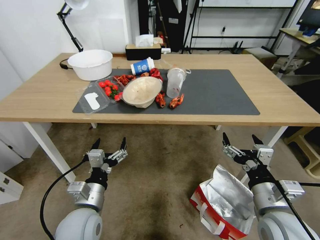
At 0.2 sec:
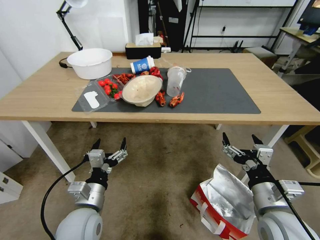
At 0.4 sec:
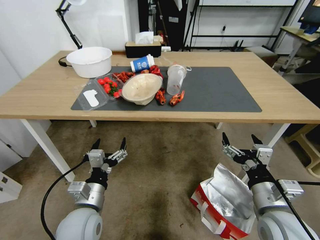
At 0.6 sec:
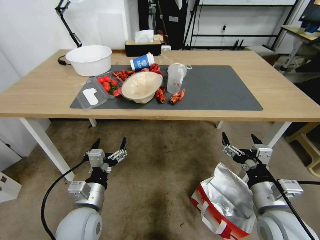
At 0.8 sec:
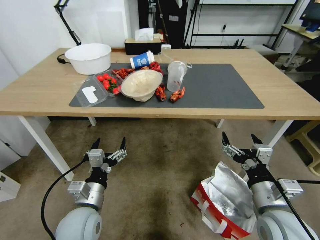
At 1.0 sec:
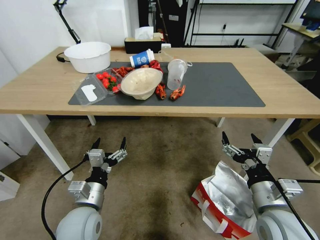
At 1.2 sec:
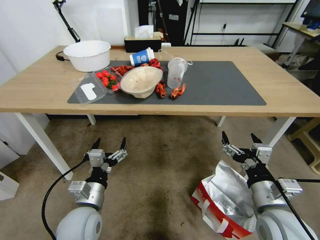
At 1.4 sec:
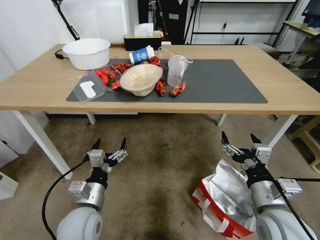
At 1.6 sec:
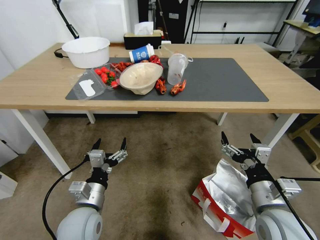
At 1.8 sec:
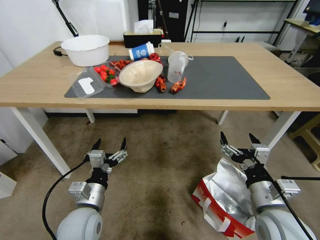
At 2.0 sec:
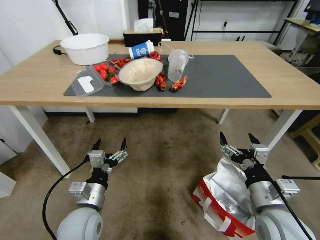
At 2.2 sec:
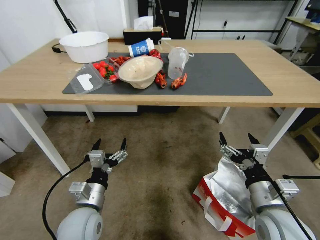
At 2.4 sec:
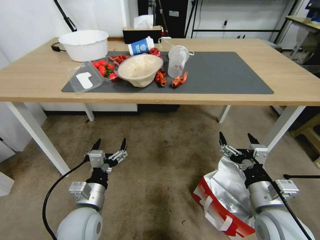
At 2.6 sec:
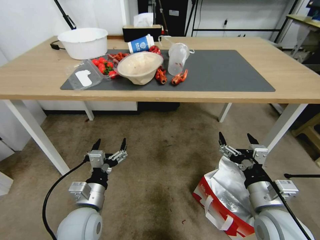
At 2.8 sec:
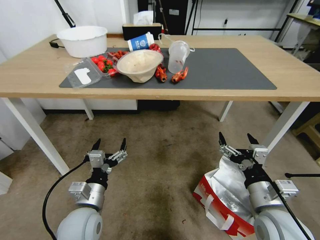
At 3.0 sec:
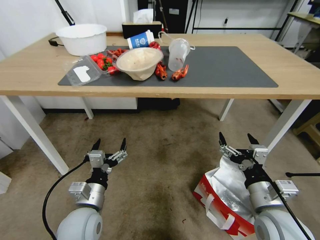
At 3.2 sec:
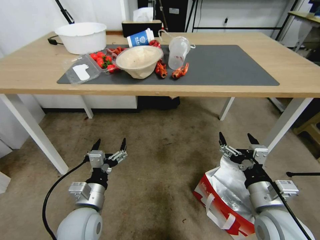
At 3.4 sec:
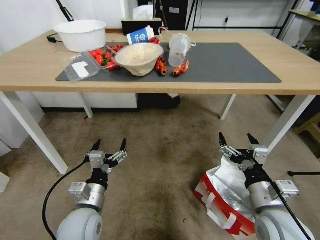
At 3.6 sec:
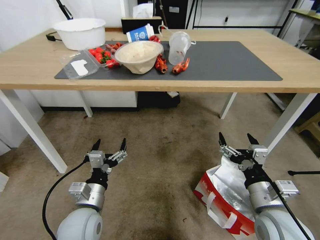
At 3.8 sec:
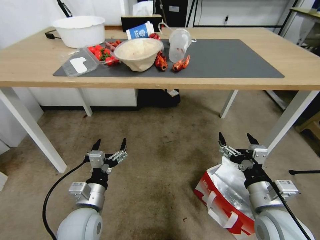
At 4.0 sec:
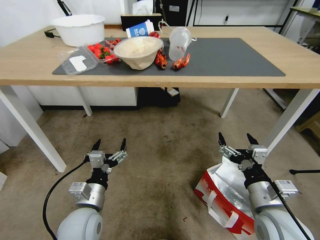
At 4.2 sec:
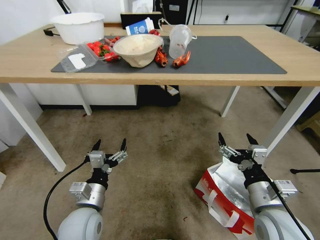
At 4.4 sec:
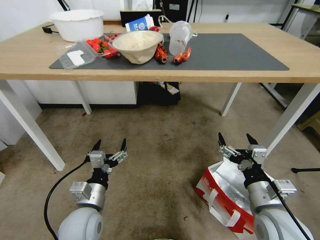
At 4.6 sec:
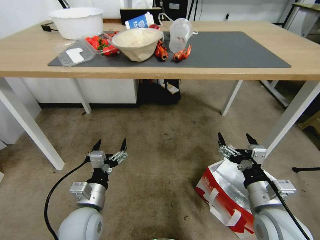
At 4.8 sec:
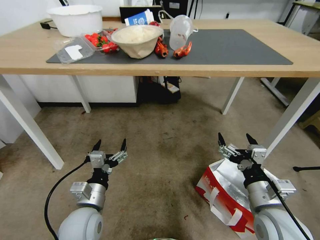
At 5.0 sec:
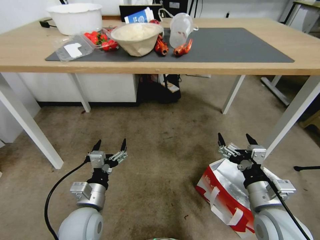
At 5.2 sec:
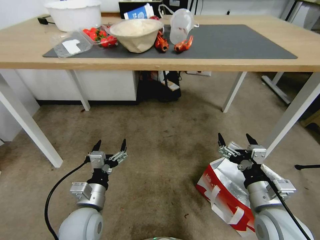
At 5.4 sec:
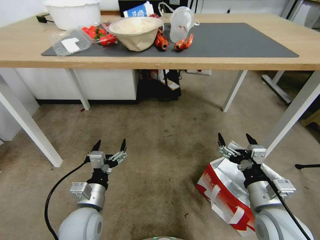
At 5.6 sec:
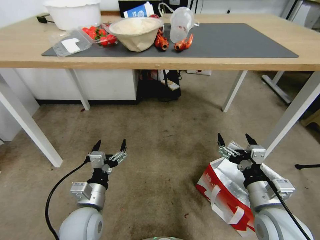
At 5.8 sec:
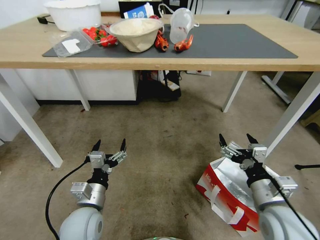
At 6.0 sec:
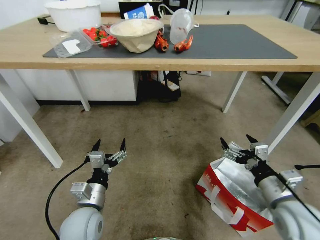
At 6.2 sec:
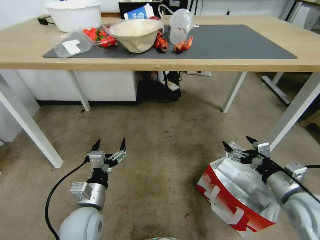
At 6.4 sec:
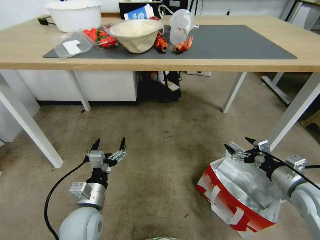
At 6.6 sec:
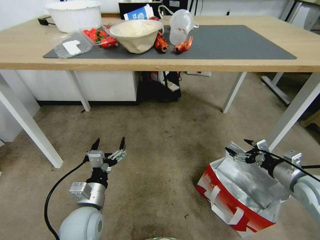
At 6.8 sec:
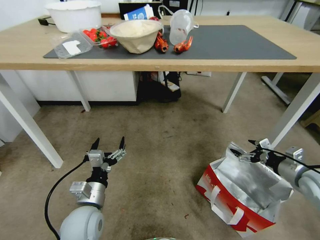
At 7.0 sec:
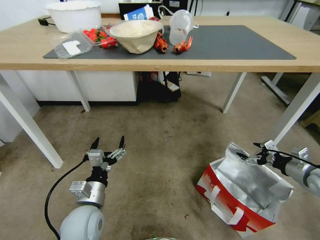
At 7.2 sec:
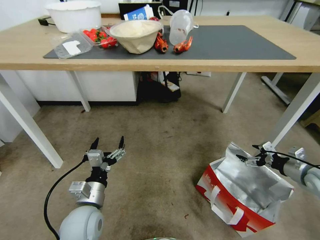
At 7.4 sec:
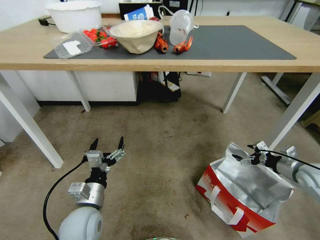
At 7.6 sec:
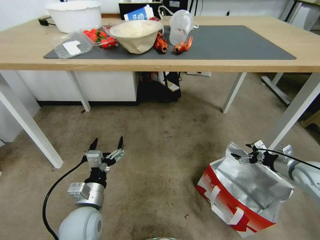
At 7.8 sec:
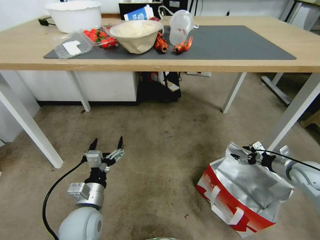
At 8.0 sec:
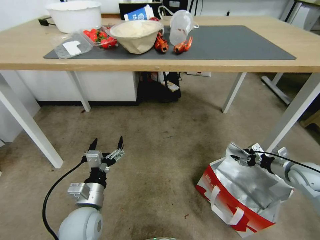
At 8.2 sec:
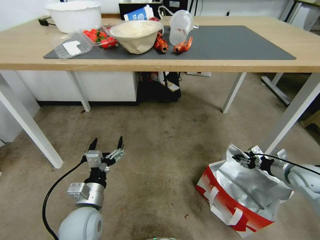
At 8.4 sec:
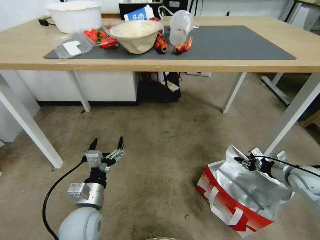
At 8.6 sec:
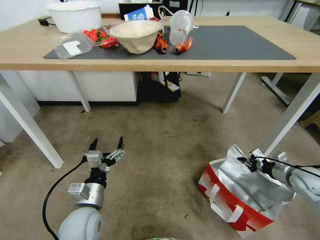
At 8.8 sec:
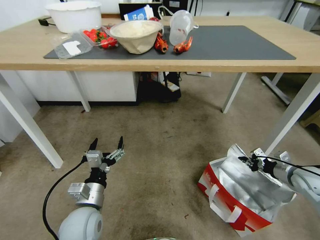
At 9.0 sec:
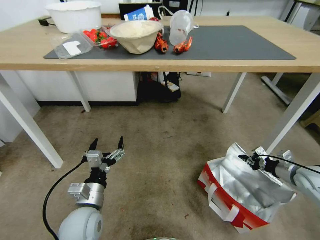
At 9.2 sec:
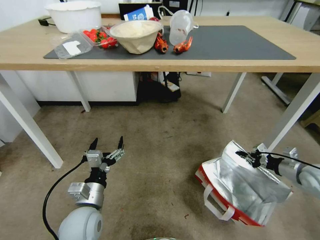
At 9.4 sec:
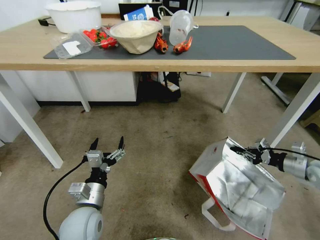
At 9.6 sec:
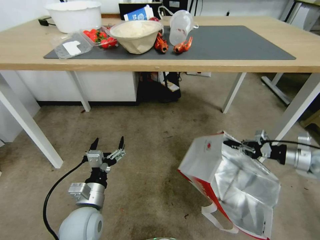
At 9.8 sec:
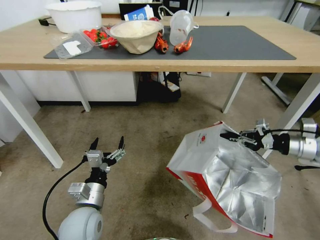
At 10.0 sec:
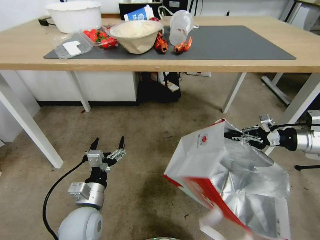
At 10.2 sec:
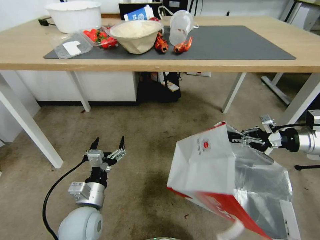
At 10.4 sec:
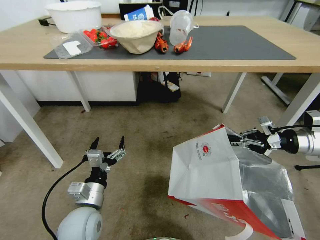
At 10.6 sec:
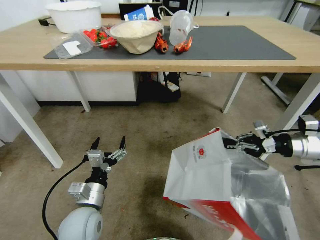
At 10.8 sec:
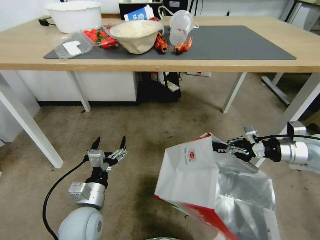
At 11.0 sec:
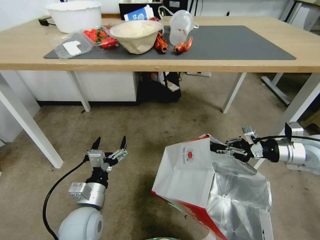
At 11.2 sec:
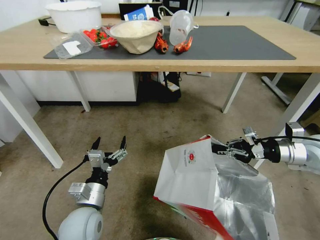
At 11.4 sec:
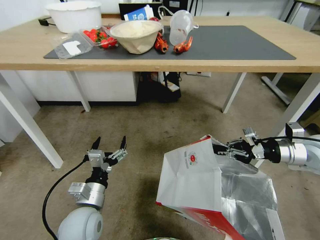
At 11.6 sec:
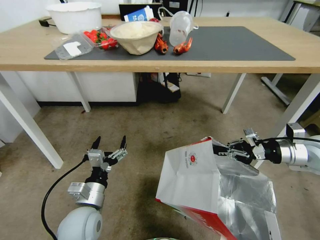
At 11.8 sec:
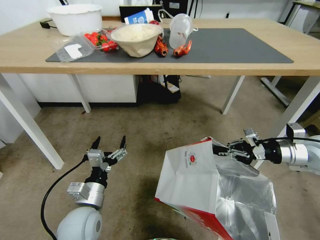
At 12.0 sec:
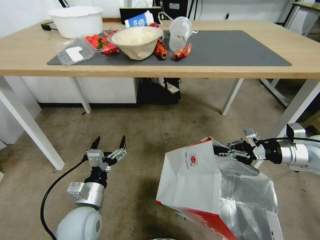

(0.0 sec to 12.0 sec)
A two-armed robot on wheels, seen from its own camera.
Task of the whole recording: Pick up the food delivery bag from the floor and place it on the table.
6.0 sec - 7.6 sec: The right gripper heads to the right and forward, covering some 25 cm.
7.6 sec - 9.0 sec: The right gripper closes its fingers.
9.0 sec - 10.4 sec: The right gripper is displaced upward by about 20 cm.

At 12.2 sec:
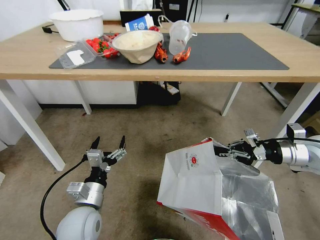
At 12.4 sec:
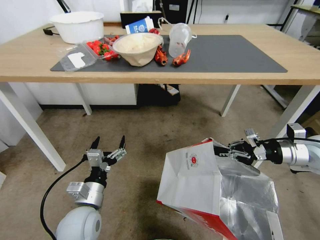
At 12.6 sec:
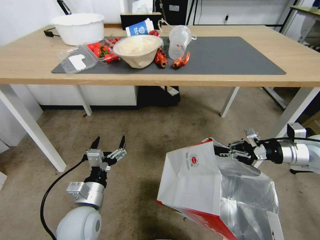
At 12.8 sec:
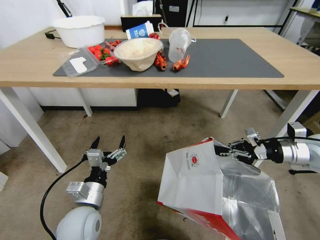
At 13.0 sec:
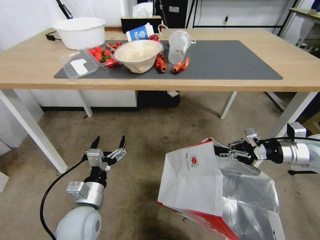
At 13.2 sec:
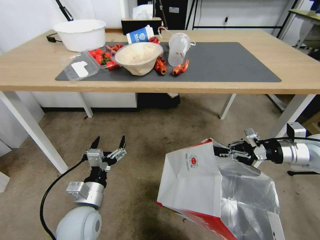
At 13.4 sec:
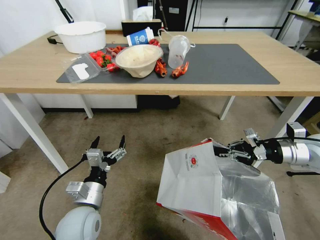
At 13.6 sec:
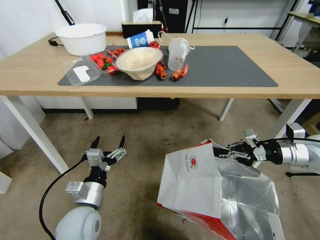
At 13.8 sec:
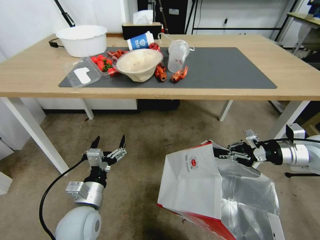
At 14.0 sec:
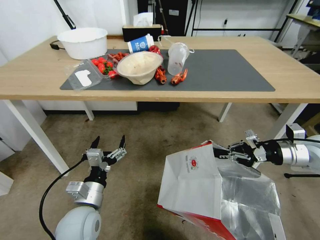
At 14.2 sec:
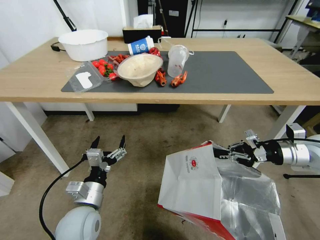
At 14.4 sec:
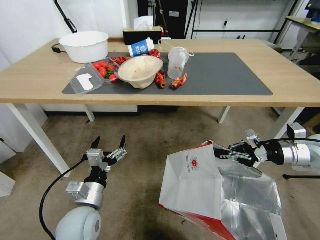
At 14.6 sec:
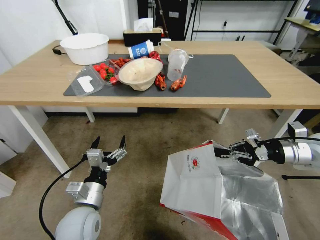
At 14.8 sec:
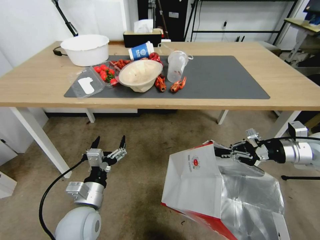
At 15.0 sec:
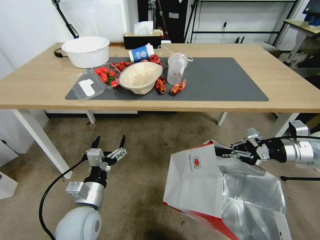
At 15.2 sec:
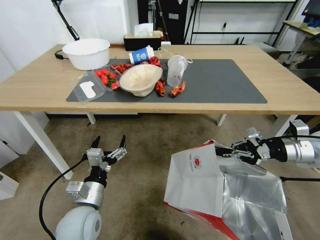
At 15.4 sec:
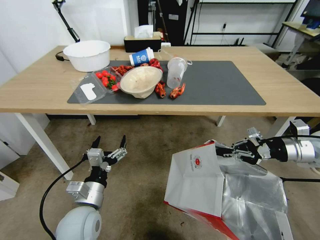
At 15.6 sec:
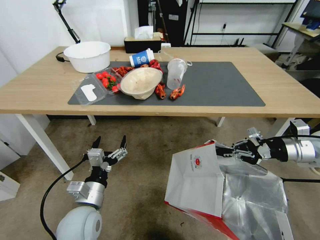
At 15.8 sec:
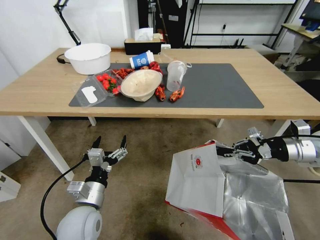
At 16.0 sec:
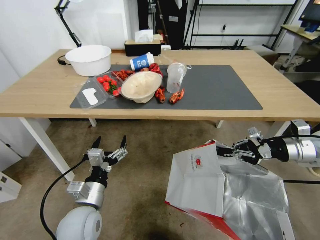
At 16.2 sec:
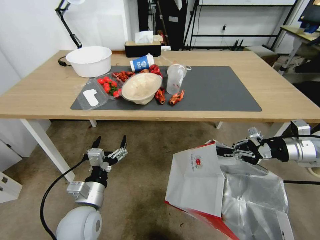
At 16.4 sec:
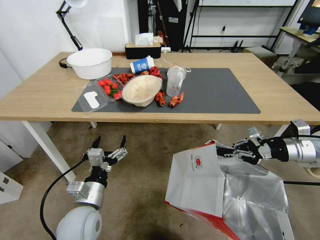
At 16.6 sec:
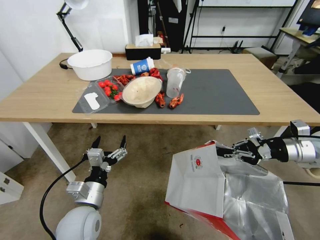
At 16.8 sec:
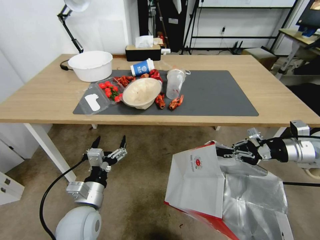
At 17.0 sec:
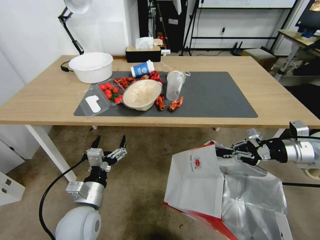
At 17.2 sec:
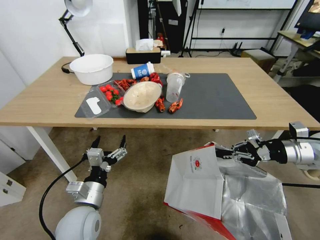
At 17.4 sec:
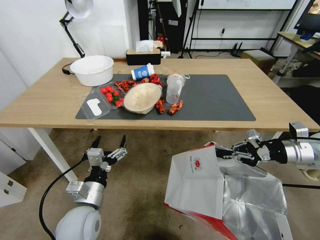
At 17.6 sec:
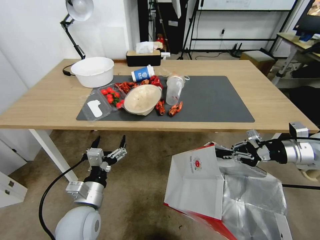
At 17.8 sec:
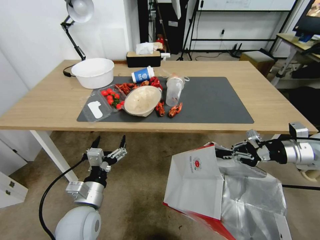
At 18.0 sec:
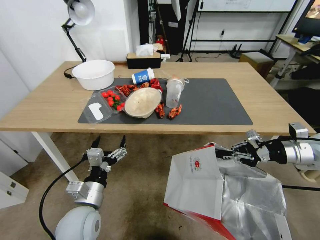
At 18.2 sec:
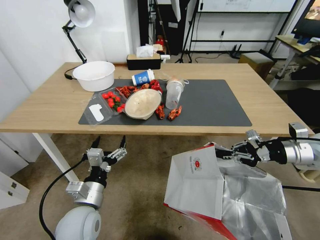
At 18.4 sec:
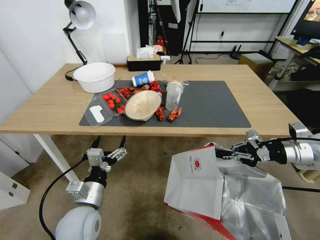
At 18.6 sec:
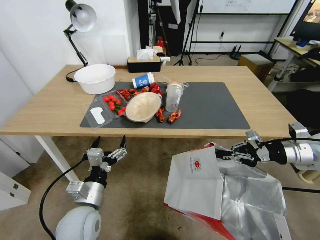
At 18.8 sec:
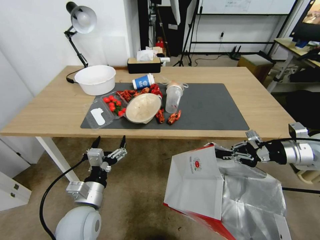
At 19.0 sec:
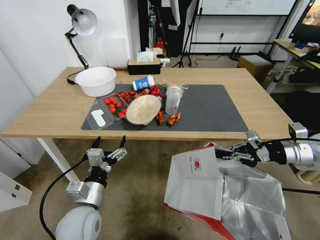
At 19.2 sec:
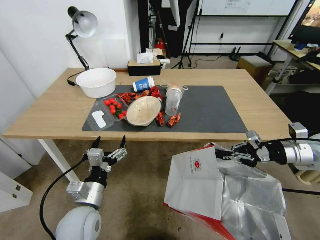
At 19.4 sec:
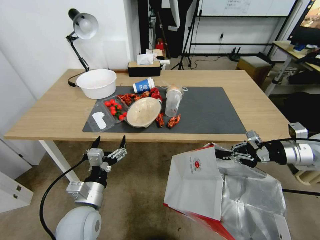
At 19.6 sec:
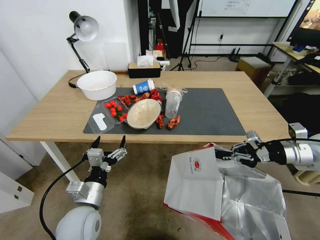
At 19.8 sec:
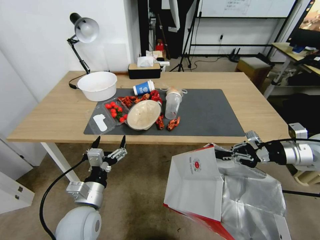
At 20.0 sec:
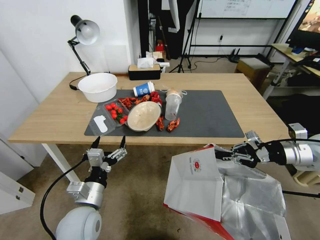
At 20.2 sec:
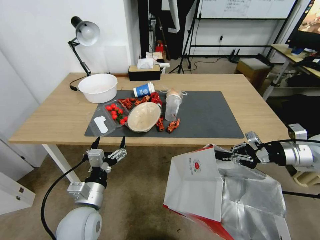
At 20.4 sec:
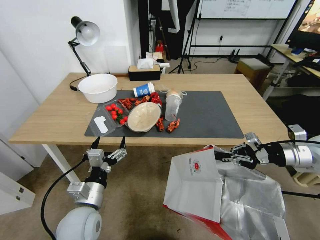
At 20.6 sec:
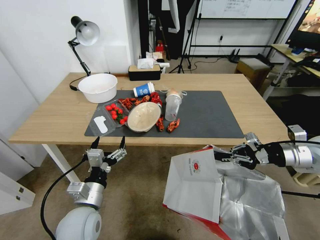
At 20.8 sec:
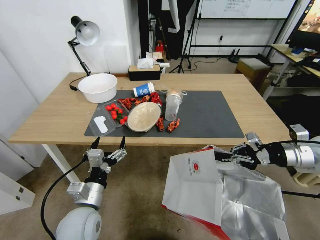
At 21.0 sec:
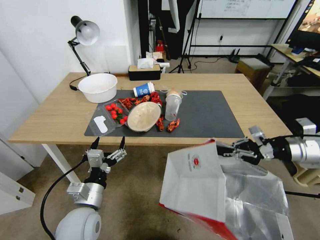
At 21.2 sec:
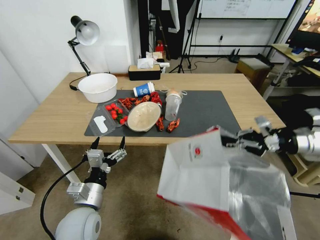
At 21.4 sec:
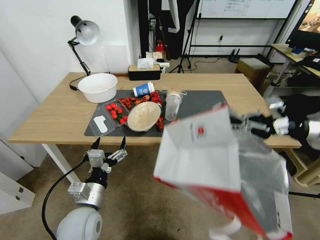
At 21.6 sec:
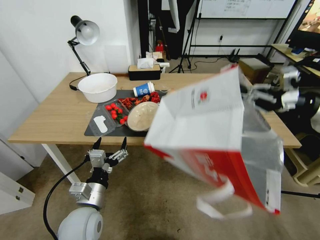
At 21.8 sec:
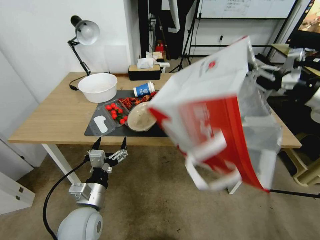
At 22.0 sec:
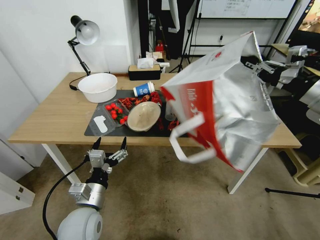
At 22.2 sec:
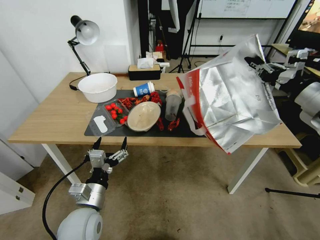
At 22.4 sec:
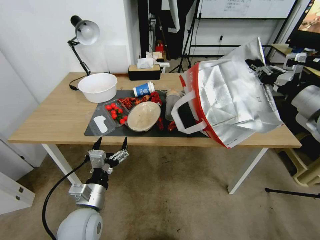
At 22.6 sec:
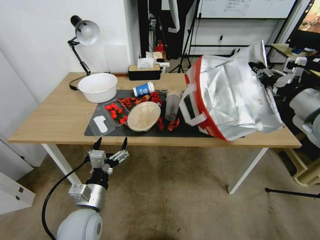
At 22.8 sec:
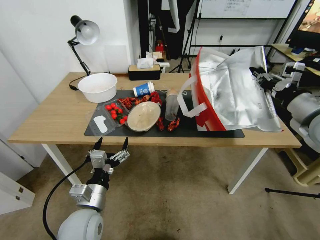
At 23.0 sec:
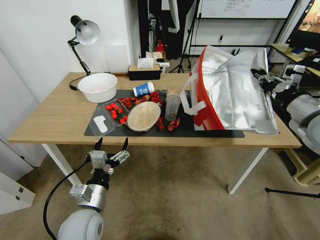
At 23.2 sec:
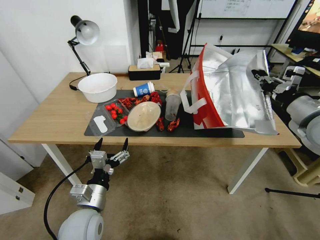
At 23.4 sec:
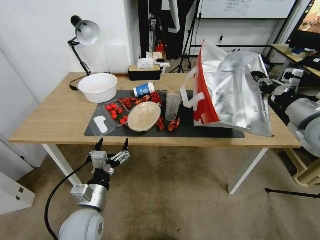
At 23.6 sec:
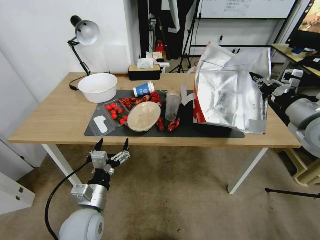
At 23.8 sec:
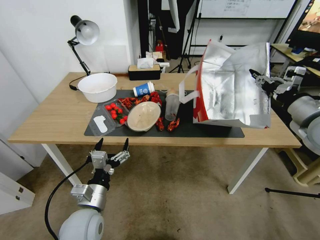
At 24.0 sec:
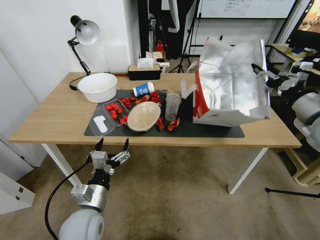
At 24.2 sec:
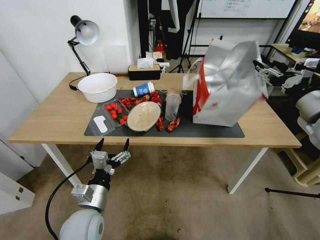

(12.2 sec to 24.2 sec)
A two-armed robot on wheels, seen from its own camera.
Task of the whole recording: Pick up the food delivery bag from the floor and place it on the table.
21.2 sec - 22.6 sec: The right gripper moves upward, approximately 10 cm.
22.6 sec - 24.2 sec: The right gripper opens up.
